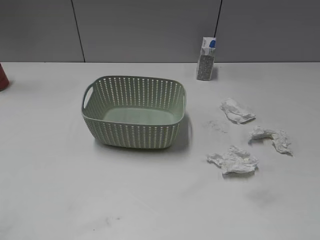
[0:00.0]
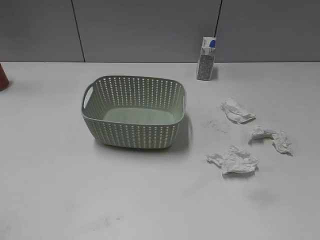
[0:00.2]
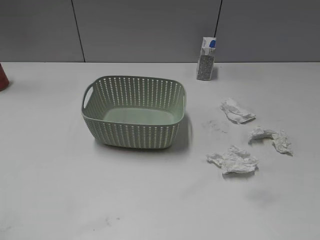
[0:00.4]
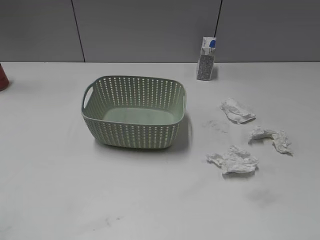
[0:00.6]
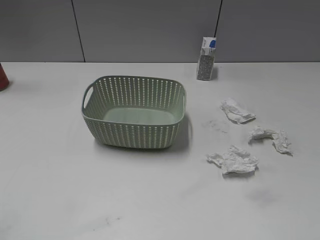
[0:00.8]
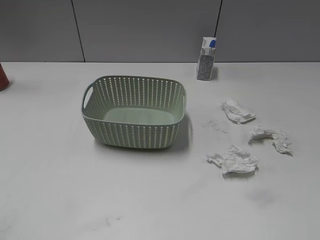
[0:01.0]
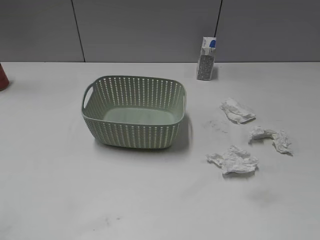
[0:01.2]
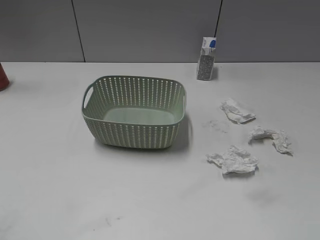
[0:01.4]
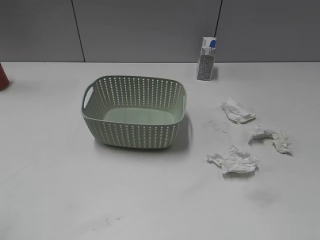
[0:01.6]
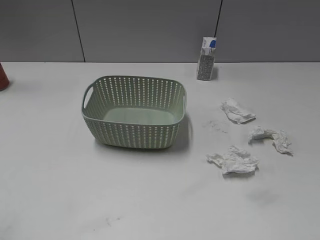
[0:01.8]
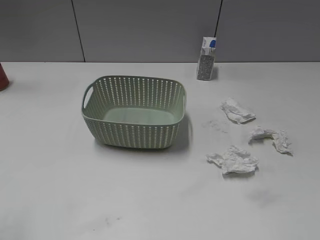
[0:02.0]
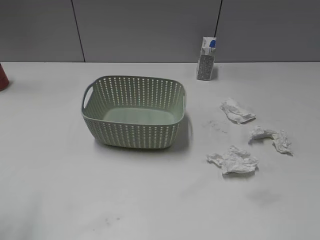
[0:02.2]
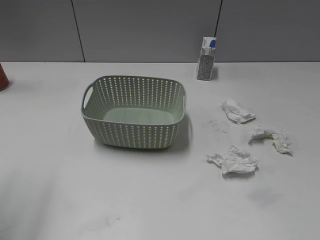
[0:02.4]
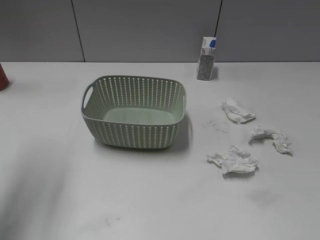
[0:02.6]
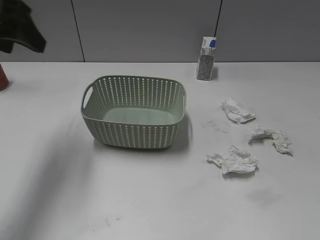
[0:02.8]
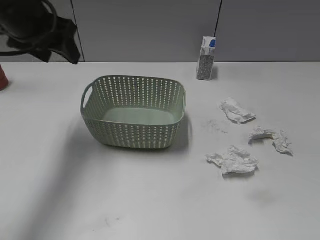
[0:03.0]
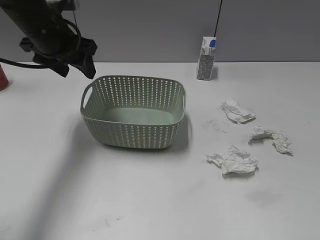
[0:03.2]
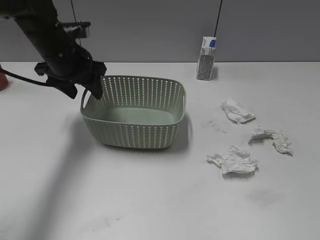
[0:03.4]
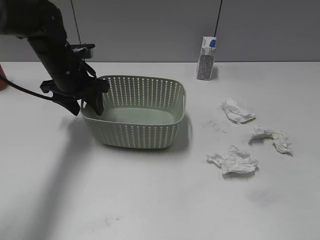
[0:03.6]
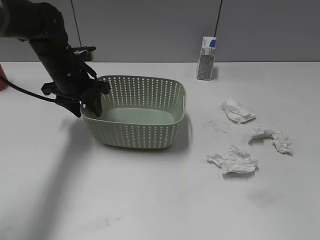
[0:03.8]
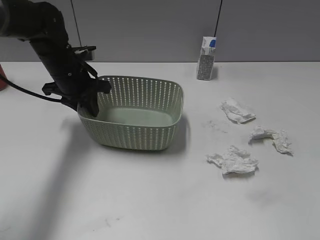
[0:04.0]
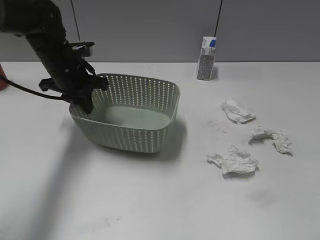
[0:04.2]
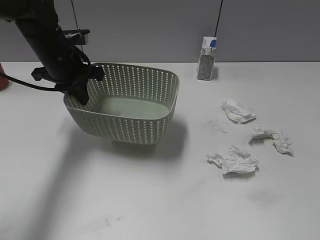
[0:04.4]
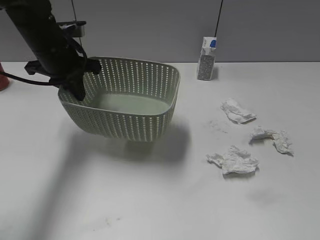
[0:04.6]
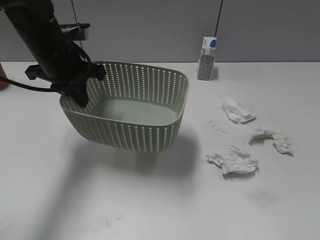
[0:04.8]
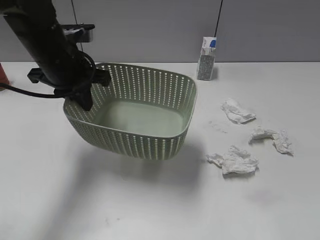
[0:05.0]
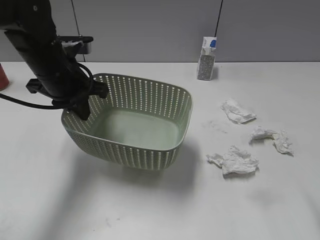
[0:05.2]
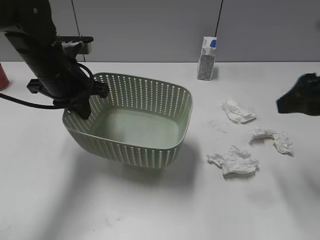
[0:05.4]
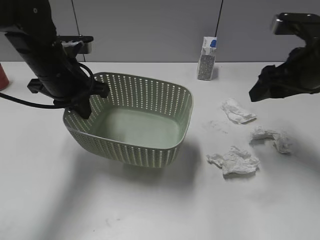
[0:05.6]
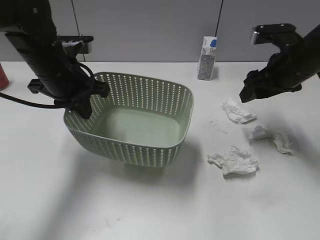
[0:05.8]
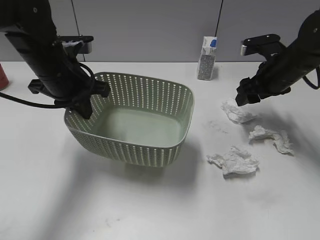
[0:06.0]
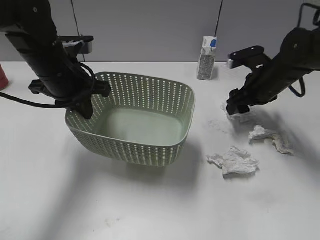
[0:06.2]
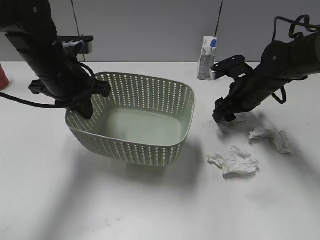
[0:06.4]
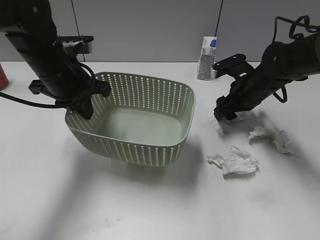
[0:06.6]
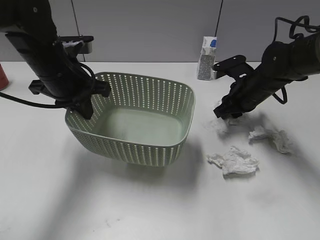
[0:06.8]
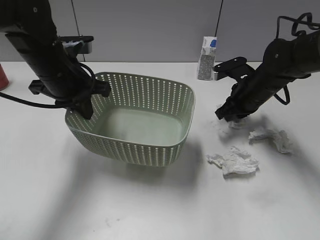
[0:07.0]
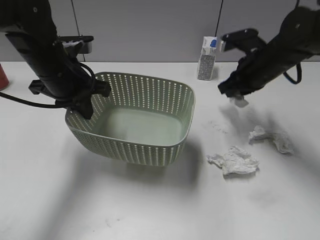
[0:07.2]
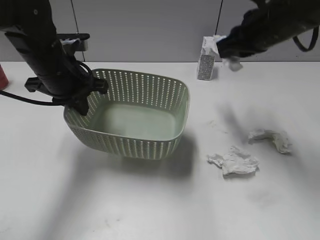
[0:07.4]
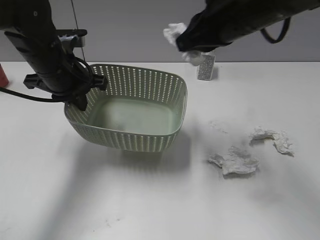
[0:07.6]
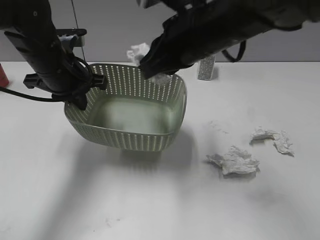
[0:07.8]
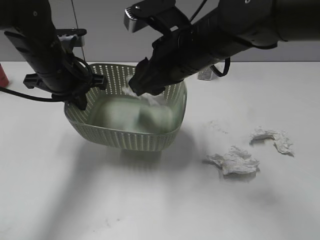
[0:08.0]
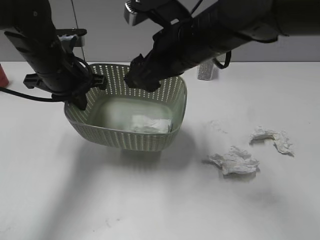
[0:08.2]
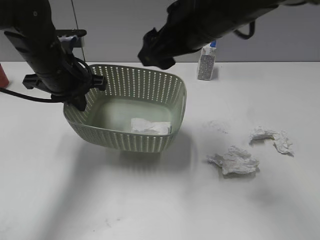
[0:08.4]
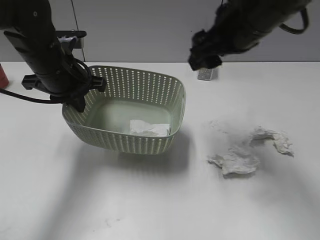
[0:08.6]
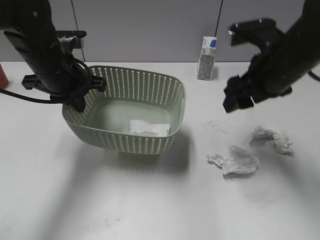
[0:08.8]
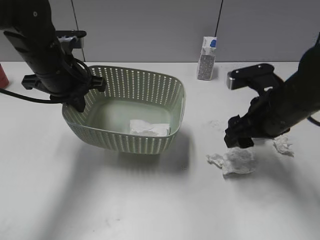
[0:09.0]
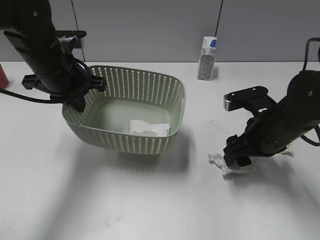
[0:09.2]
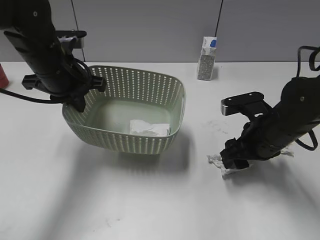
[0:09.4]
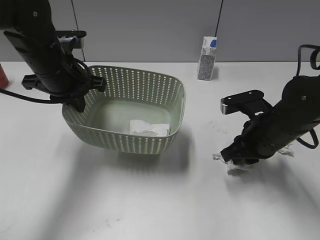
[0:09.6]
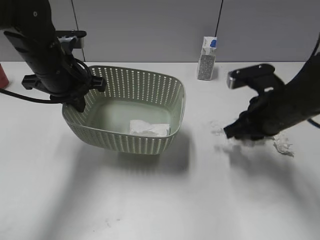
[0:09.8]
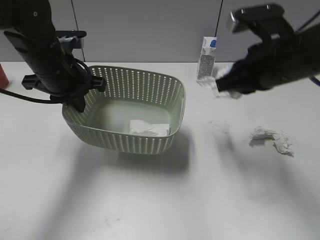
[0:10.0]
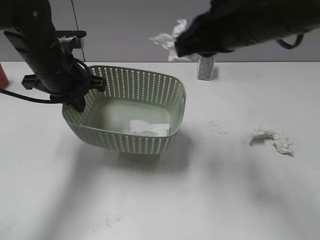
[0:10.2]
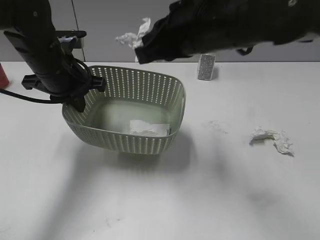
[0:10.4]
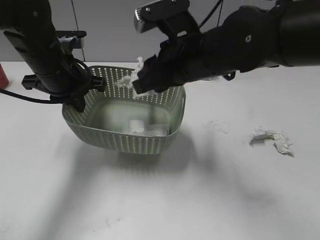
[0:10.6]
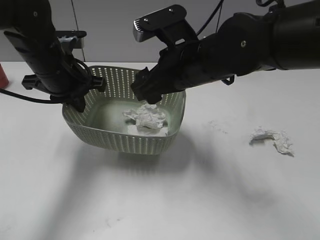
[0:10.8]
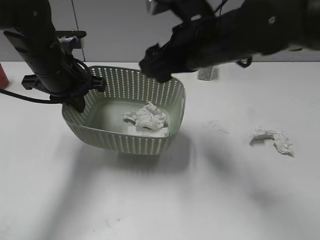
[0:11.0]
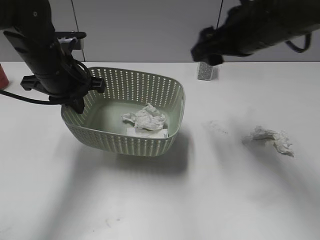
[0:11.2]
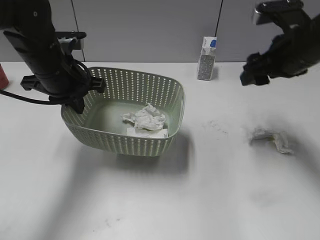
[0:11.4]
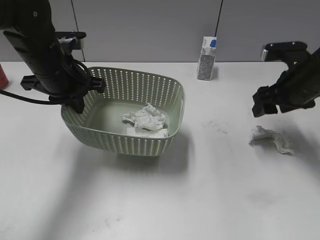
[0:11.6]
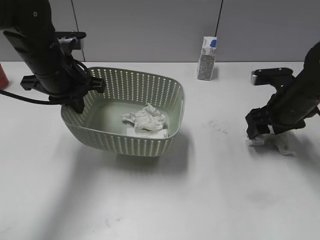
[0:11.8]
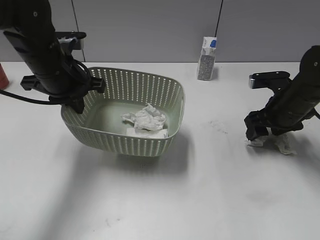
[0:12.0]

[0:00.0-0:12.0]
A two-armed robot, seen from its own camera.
Step, 0:02.4 to 0:04.2: Grasp the basket with left gripper.
Step, 0:04.4 to 0:04.6: Lift the basket with left gripper.
Step, 0:04.8 to 0:07.0: Grasp the waste paper with right gripper.
Step, 0:07.2 to 0:08.2: Place the waste paper in the basket with right gripper.
Step, 0:08.4 to 0:09.8: Grasp the waste paper with right gripper.
Step, 0:10.0 to 0:10.8: Place the waste paper in the basket with right gripper.
0:01.6 to 0:03.0: The left gripper moves forward, some 35 cm.
0:03.0 to 0:04.4: The left gripper is displaced downward and forward by some 15 cm, and closes.
0:04.4 to 0:06.0: The left gripper is displaced backward by about 5 cm; the right gripper is displaced forward by some 40 cm.
0:06.0 to 0:07.6: The right gripper moves upward, to the left and backward, roughly 20 cm, and closes up.
0:07.6 to 0:09.0: The right gripper heads downward and to the right, covering approximately 15 cm, and opens.
0:09.0 to 0:10.4: The right gripper goes approximately 15 cm to the left and upward, and closes up.
0:10.4 to 0:12.0: The right gripper is displaced to the right and downward by roughly 25 cm, and opens its fingers.

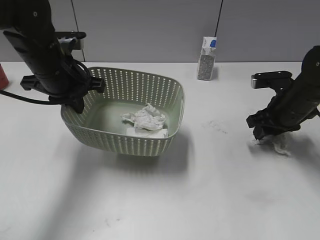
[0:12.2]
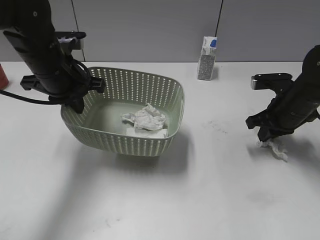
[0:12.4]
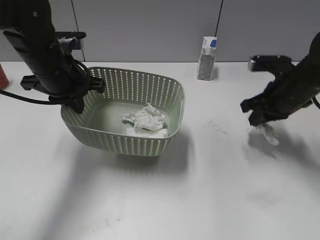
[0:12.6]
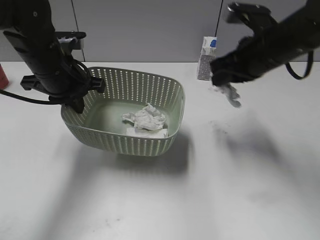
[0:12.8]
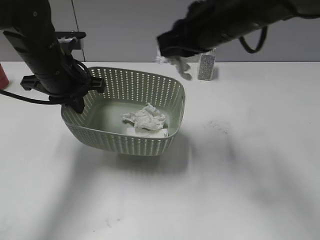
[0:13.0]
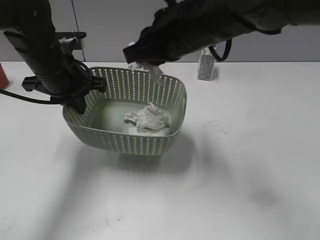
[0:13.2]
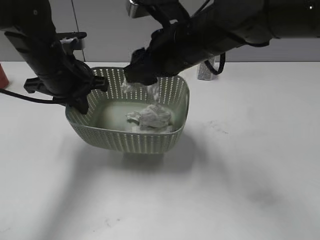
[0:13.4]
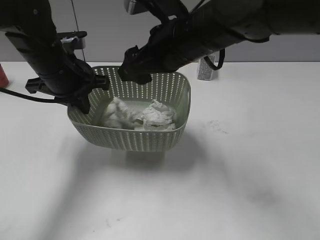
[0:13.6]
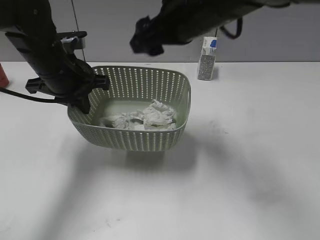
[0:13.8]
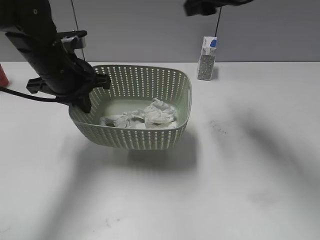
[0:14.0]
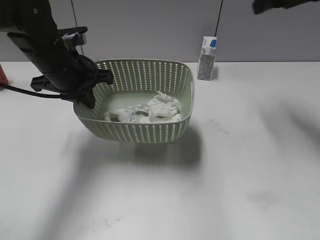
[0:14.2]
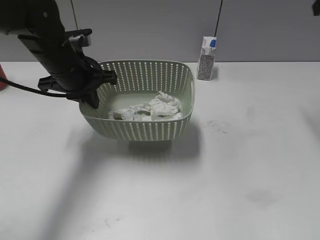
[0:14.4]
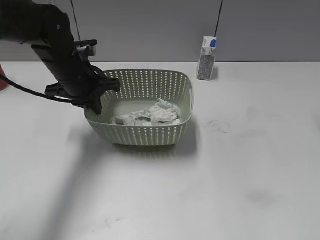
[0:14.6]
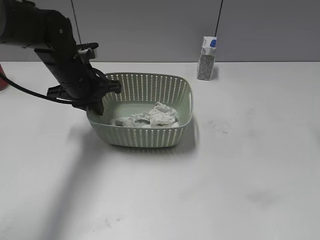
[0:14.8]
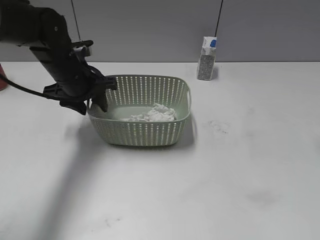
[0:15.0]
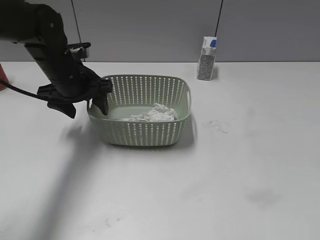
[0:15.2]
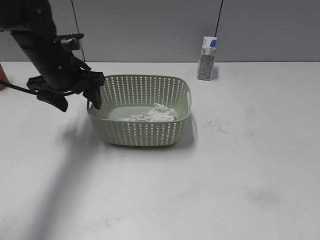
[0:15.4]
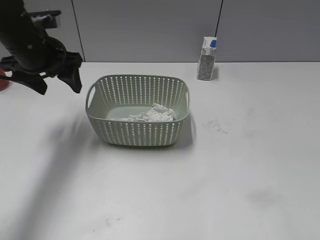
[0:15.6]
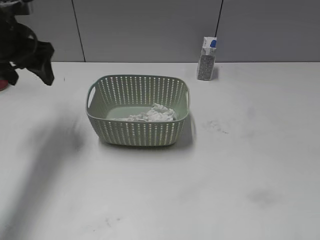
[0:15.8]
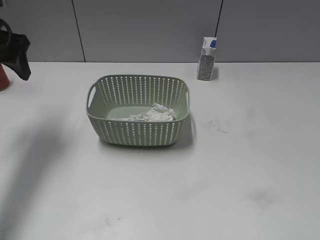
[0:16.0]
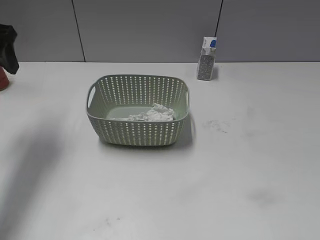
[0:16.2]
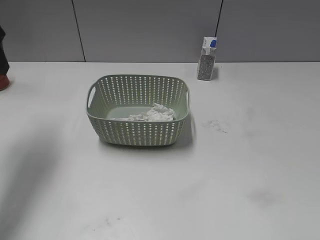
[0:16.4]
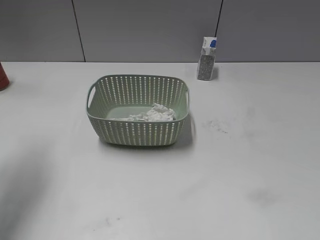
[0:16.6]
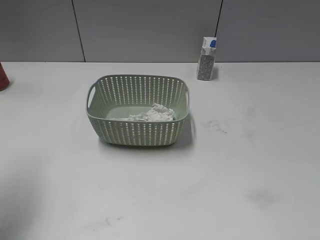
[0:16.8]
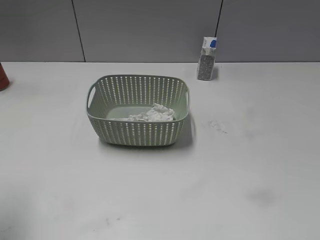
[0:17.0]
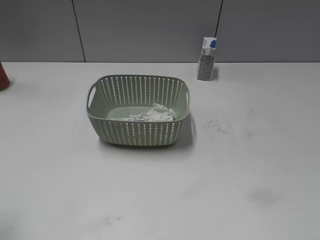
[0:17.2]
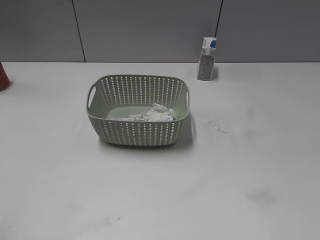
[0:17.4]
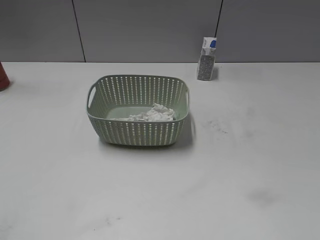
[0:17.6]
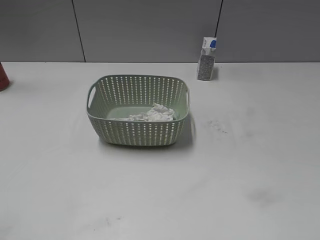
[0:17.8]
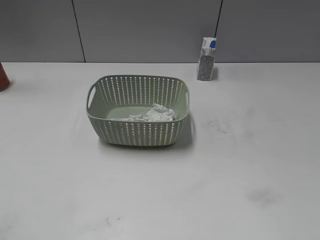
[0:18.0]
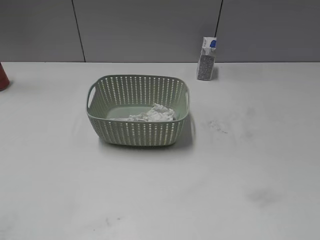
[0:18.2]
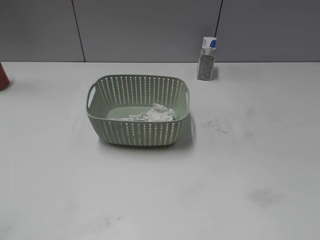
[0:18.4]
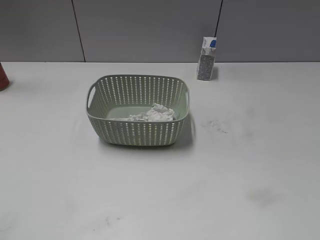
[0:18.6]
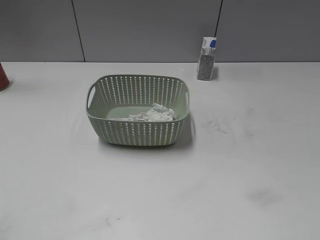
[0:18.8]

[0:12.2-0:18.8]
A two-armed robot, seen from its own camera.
Step, 0:12.6 to 0:13.8: Place the waste paper in the basket with right gripper.
Step, 0:14.0 to 0:15.0: Place the basket on the table with left gripper.
0:12.2 to 0:13.8: The right gripper shifts some 25 cm to the left and upward, and closes, then opens again.
0:13.8 to 0:15.4: The left gripper opens; the right gripper is displaced to the right and backward by about 30 cm.
0:15.4 to 0:17.2: The right gripper travels backward and downward by some 20 cm. The left gripper is displaced backward, to the left and upward by about 30 cm.

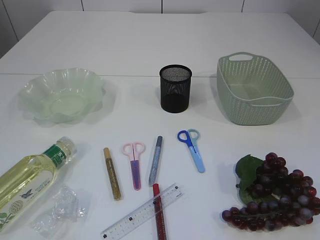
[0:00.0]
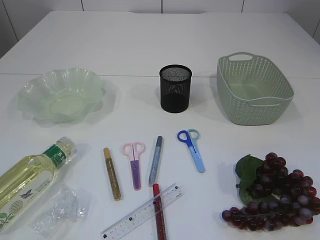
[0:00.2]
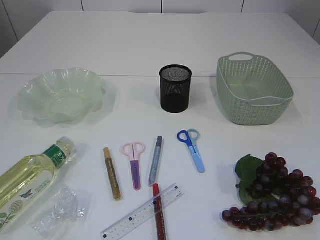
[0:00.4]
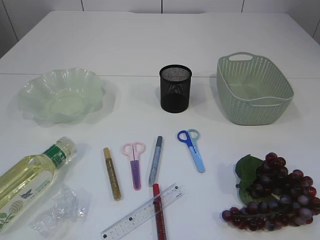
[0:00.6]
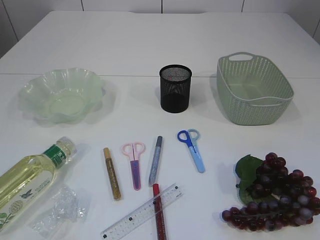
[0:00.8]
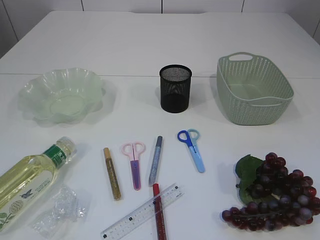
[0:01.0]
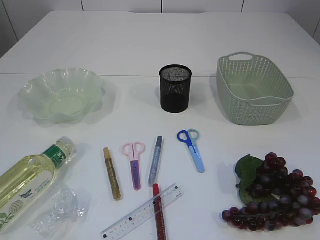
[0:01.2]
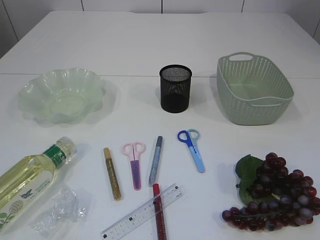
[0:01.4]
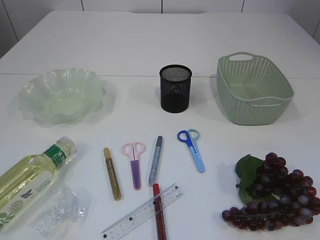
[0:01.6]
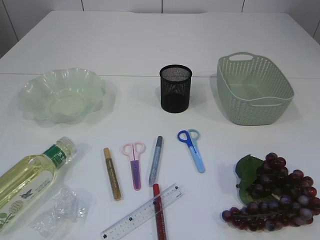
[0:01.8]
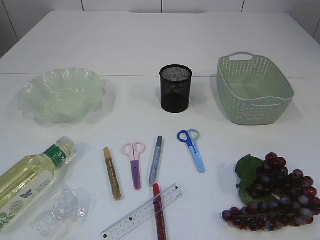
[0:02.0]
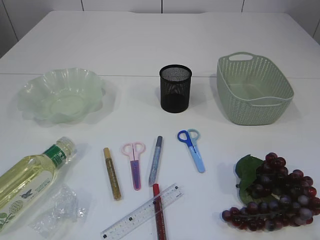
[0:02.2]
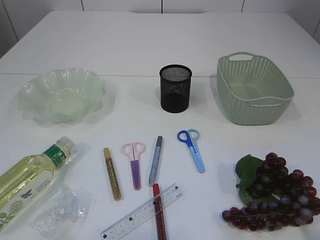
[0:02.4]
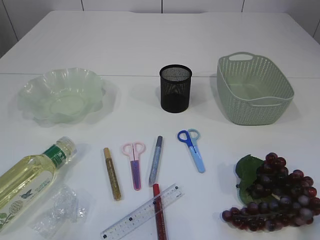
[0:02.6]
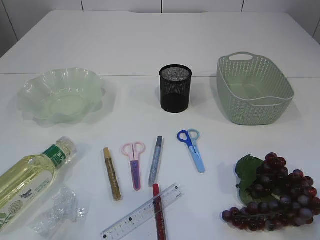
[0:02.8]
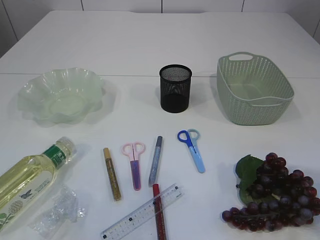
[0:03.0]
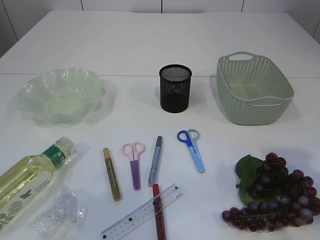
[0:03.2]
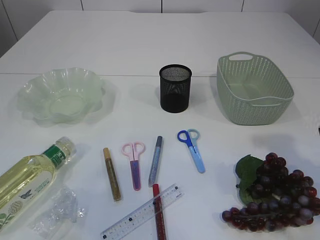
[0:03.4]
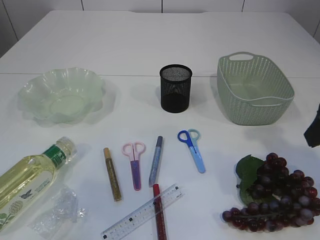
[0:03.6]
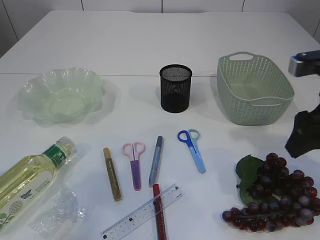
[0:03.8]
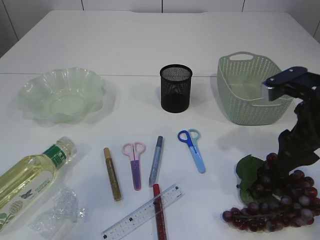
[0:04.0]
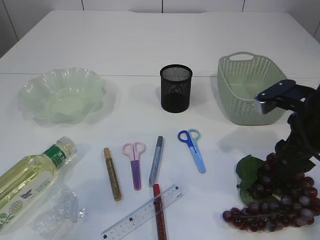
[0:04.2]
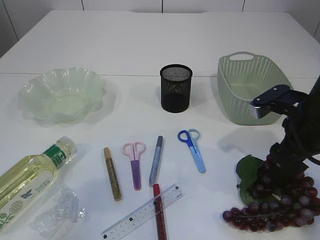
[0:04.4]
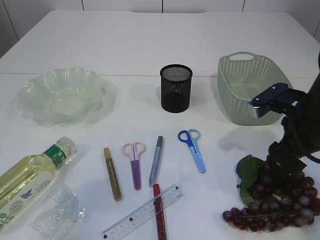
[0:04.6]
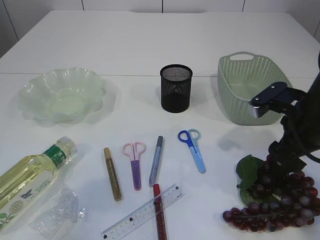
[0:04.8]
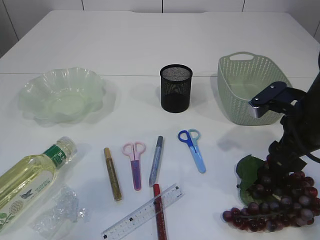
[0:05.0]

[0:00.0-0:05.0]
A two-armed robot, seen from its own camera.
0:01.6 to 0:03.4: Both grippers move forward, roughly 15 cm.
0:03.4 to 0:05.0: The right gripper shifts about 15 cm downward and forward.
